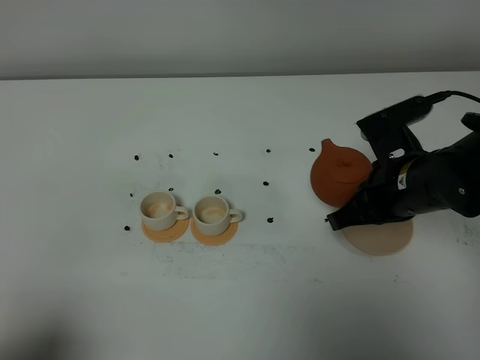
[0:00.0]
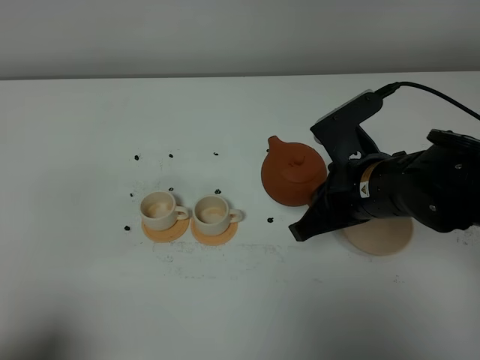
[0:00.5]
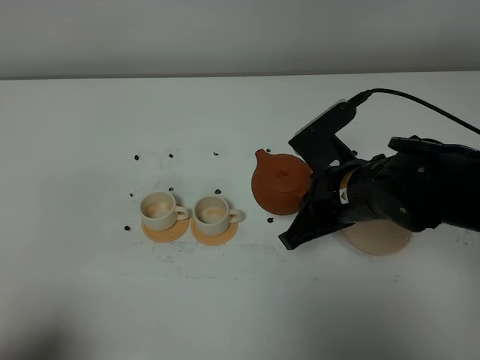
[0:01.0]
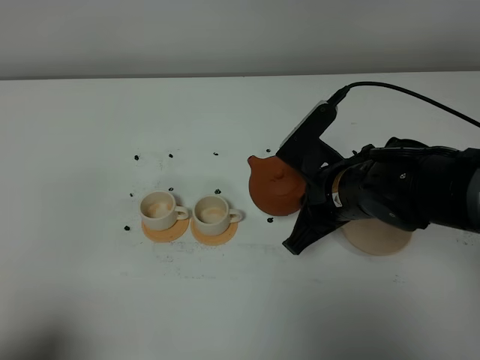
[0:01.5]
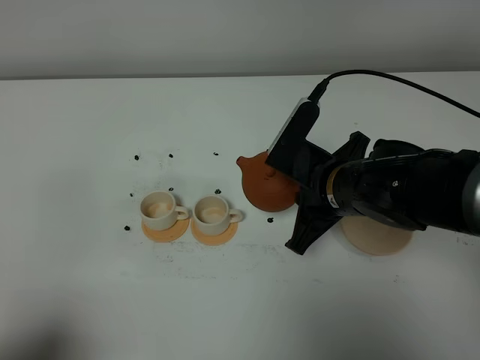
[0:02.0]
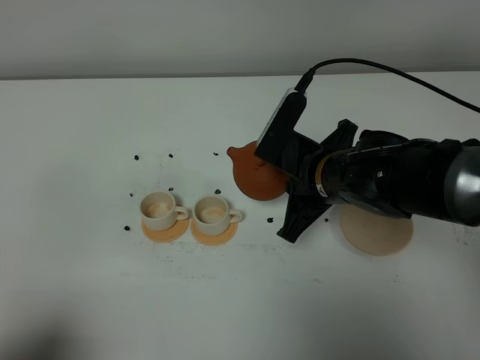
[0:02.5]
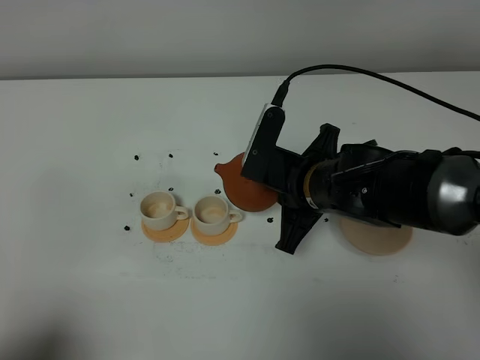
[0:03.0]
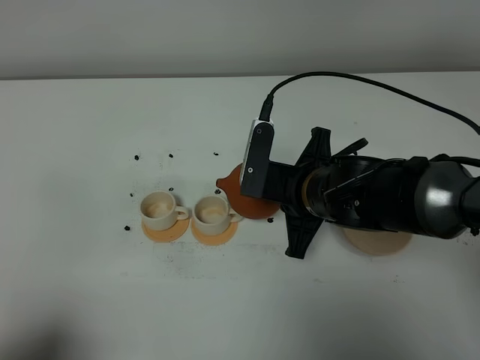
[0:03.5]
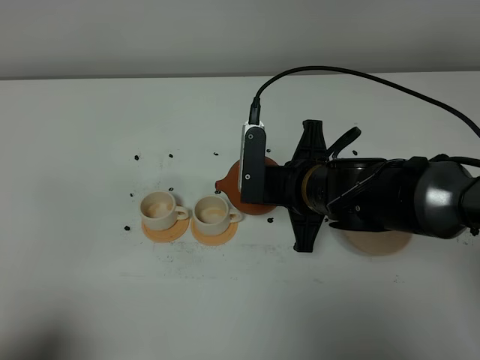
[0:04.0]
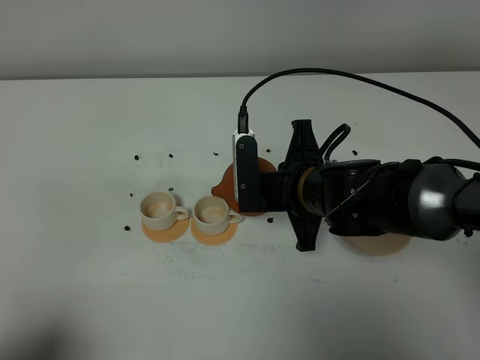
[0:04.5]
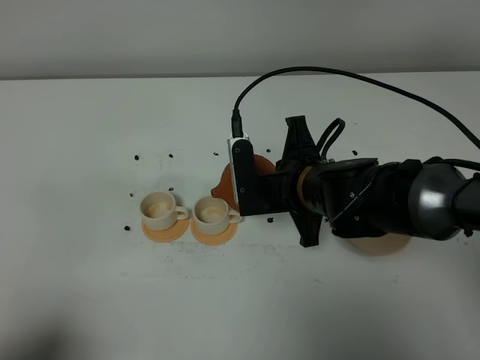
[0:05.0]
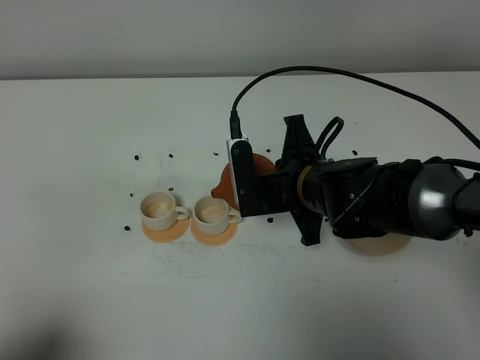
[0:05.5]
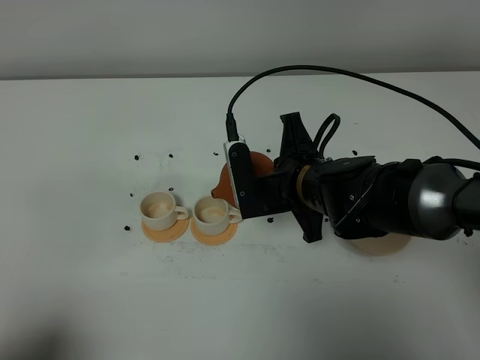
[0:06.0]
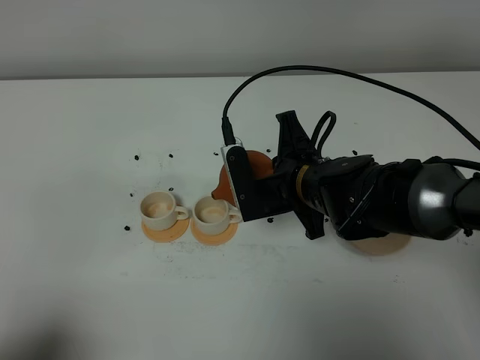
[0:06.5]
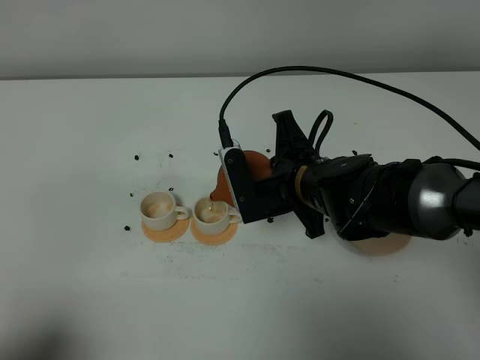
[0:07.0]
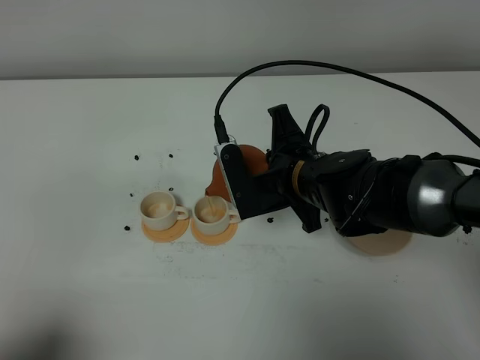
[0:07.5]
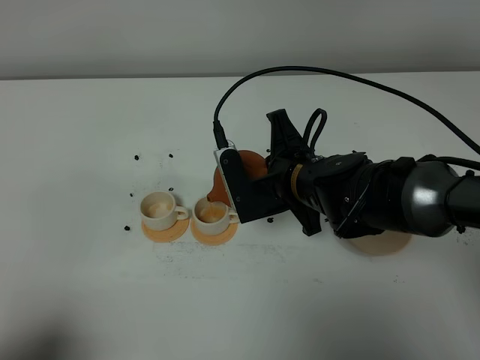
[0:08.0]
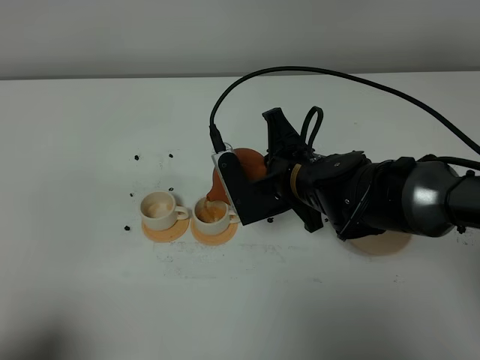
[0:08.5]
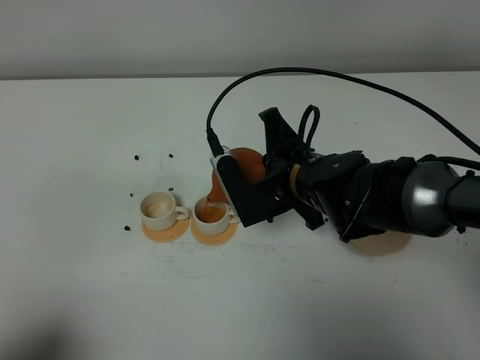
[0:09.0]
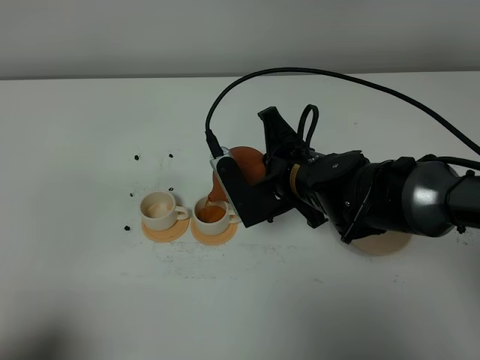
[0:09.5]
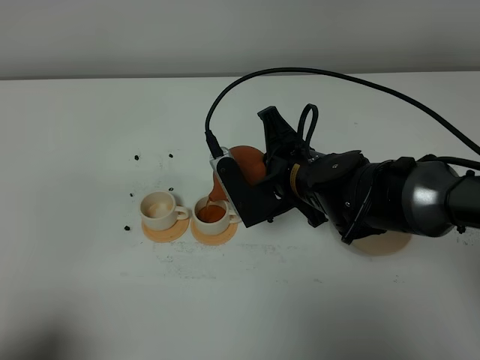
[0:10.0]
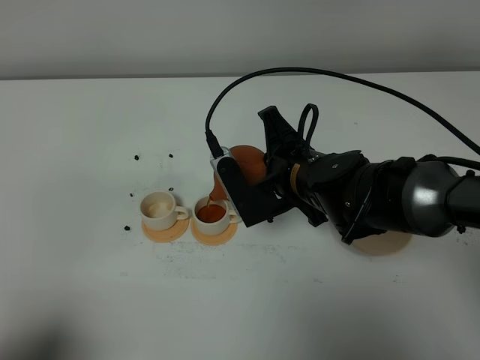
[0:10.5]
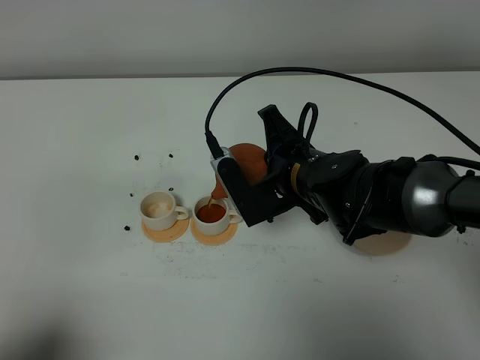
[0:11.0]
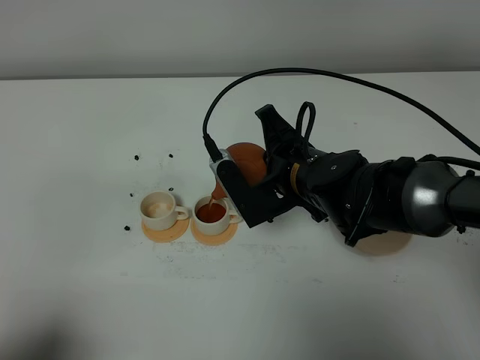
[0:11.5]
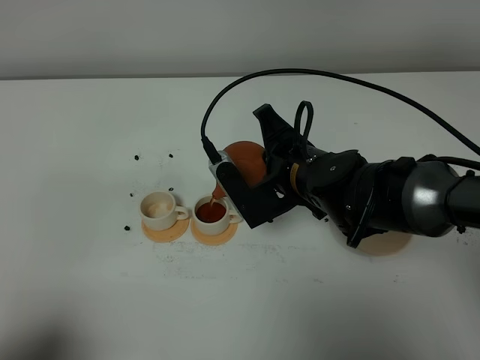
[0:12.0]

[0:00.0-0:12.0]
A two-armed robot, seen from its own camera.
Task of the whole recording: grasp the brown teapot and pour the tea into the two white teacups one by one, put the brown teapot back in its original place.
0:00.0 to 0:02.0: The right gripper is displaced to the left by some 5 cm.
0:04.0 to 0:06.0: The grippers move only a little.
0:06.0 to 0:10.0: The grippers stay close to where they were, moving slightly.
0:10.0 to 0:12.0: The grippers move only a little.

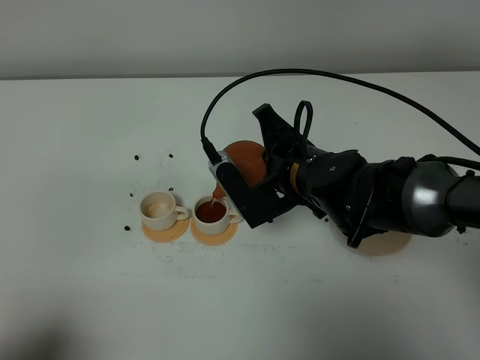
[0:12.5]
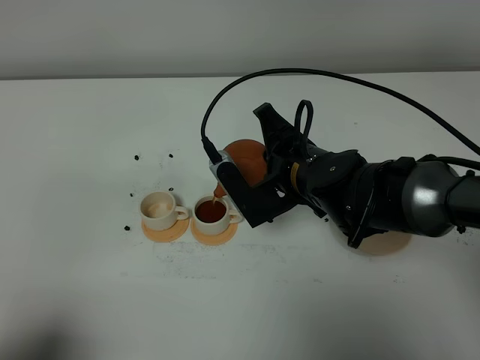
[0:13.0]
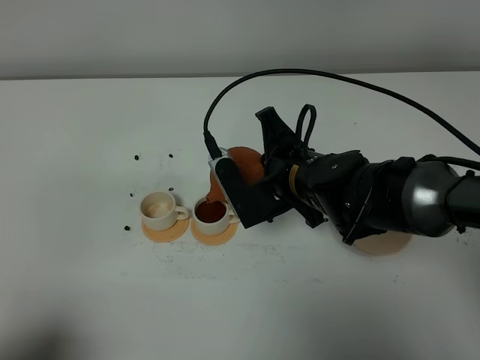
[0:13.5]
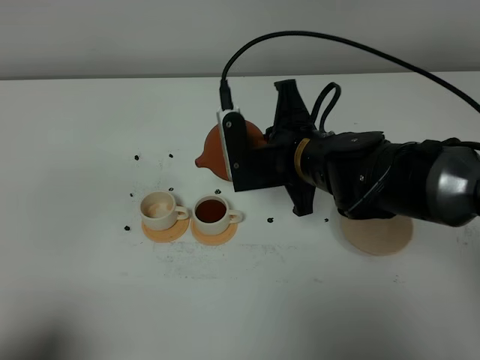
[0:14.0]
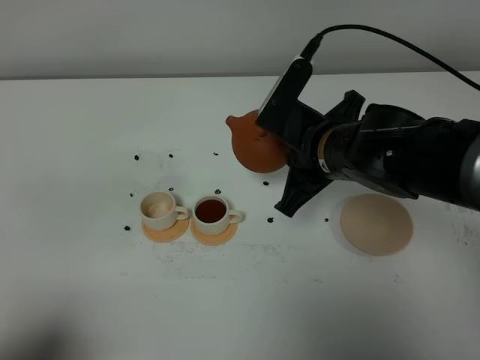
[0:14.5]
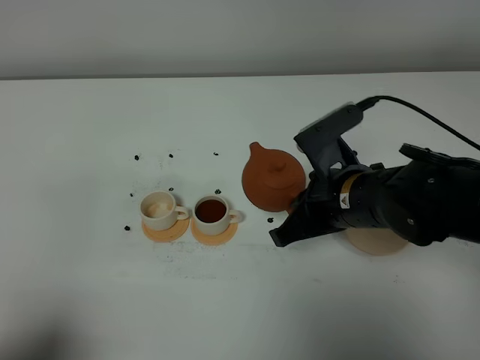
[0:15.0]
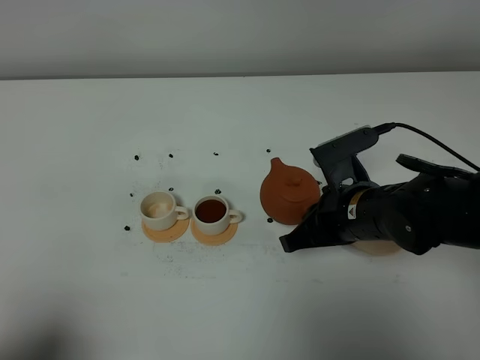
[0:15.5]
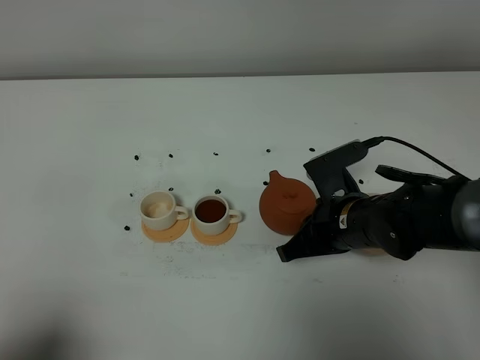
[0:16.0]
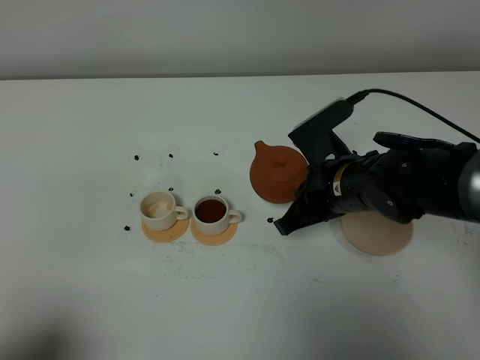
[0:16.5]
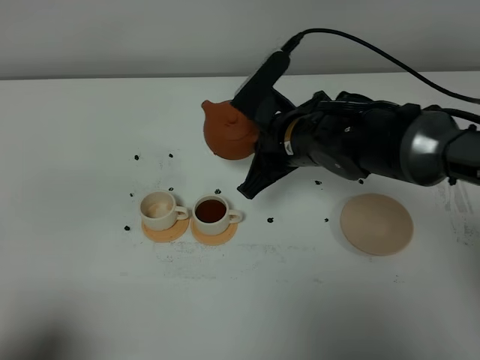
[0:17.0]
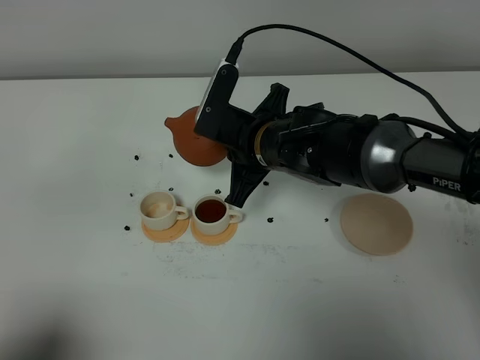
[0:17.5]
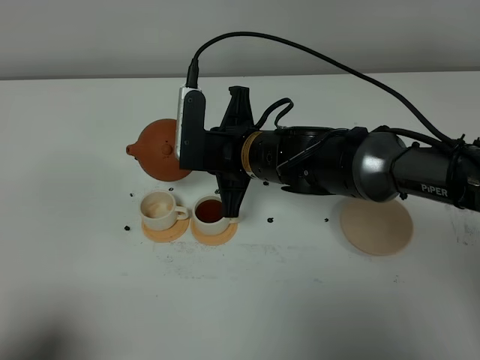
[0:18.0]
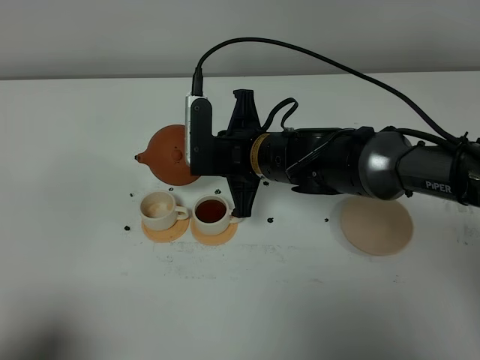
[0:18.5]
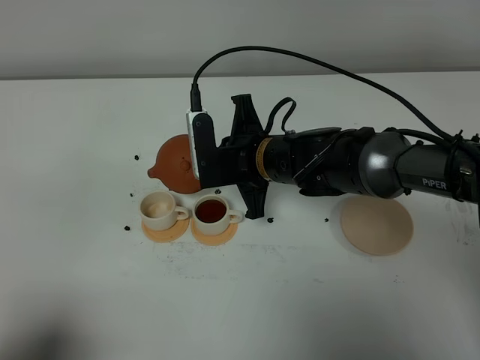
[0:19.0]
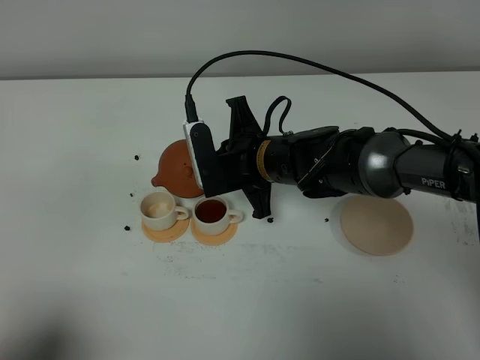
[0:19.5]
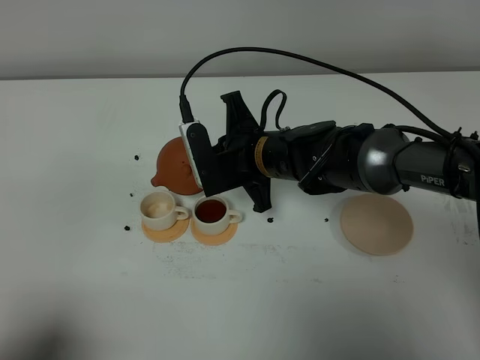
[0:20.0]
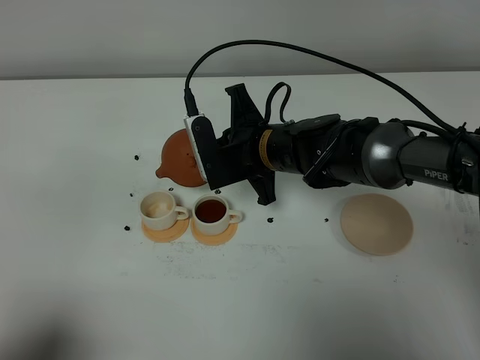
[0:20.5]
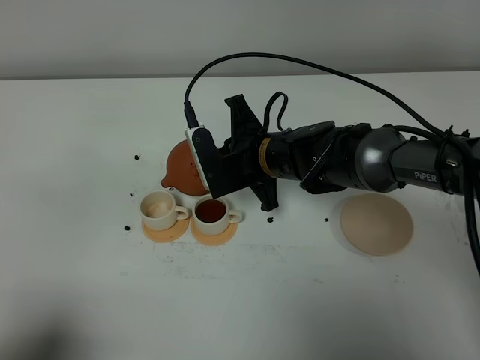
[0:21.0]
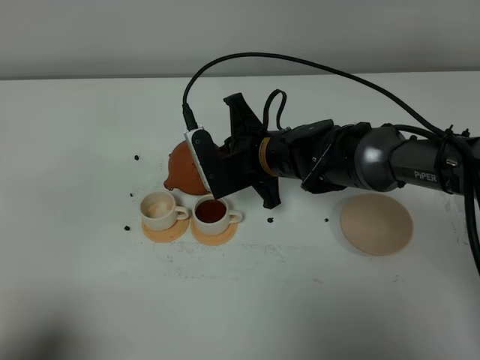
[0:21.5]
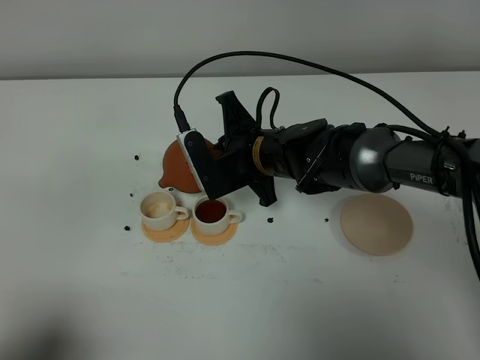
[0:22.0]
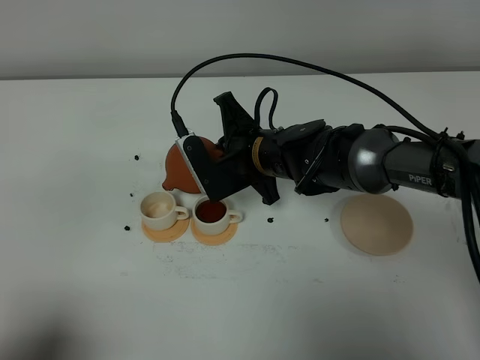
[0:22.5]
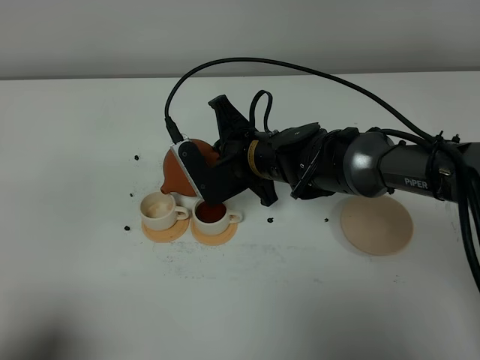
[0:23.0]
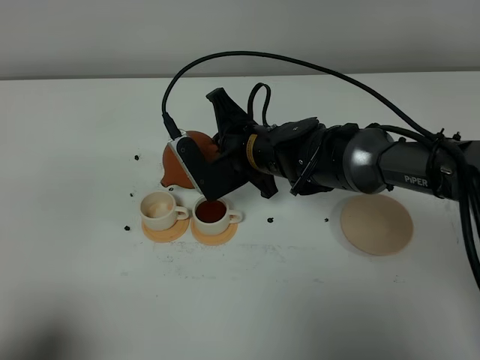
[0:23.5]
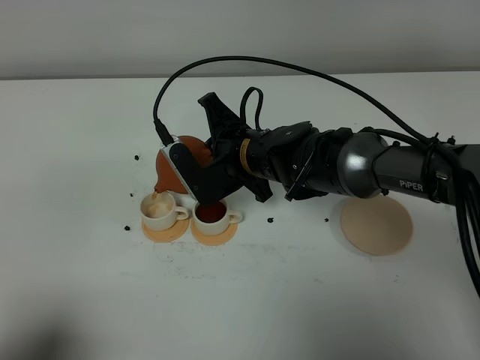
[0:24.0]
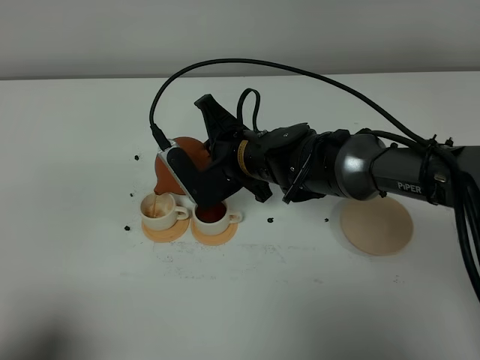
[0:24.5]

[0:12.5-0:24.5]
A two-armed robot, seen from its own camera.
Task of the whole recording: grasp the brown teapot and pour the tea into the two white teacups one by one, put the brown teapot back in its original place.
0:16.5 to 0:18.5: The right gripper goes some 10 cm to the left.
0:18.5 to 0:20.5: The grippers stay close to where they were, moving slightly.
0:20.5 to 0:24.5: There are only small adjustments of the grippers.

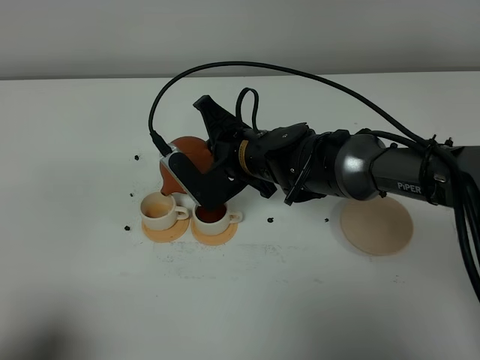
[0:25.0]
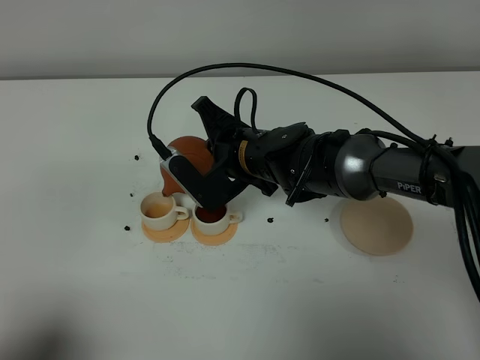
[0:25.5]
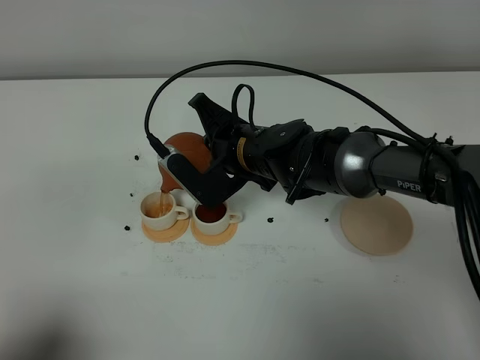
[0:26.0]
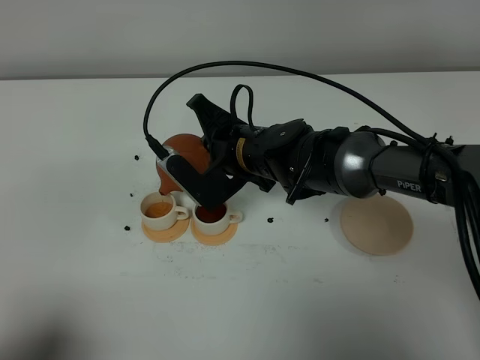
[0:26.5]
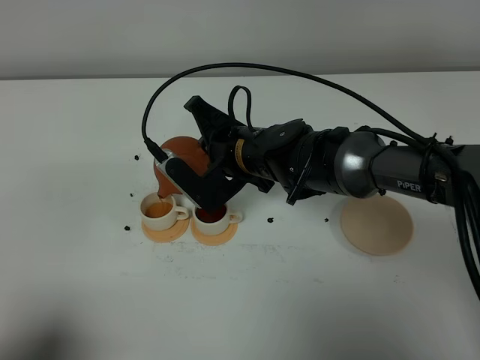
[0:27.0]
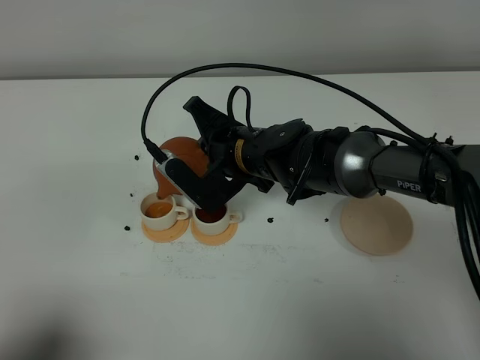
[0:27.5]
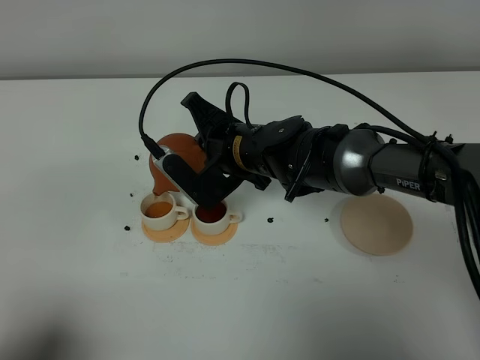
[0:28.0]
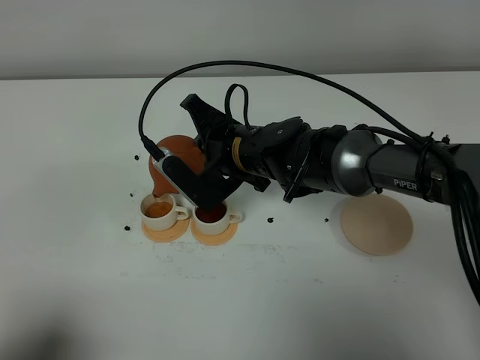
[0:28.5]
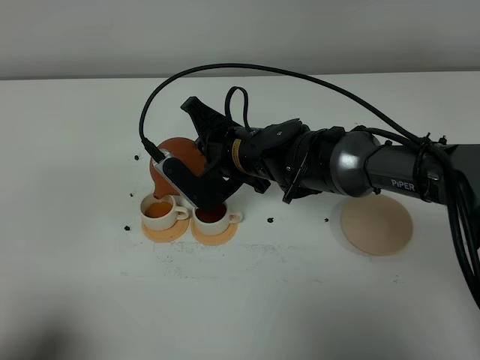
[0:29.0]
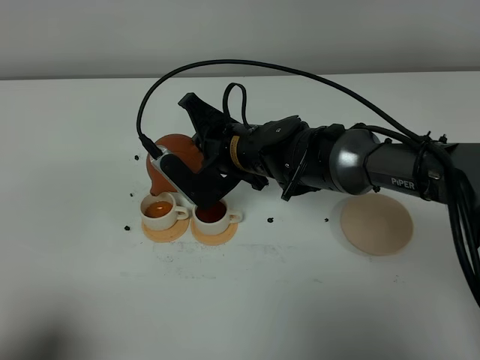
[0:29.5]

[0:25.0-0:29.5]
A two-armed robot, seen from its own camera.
Task of the whole recording: grasp the brown teapot and pour the tea into the two white teacups one by one, put the brown teapot back in its original place.
0:25.0 to 0:27.0: There are only small adjustments of the grippers.
0:27.0 to 0:29.5: Both grippers stay put.
